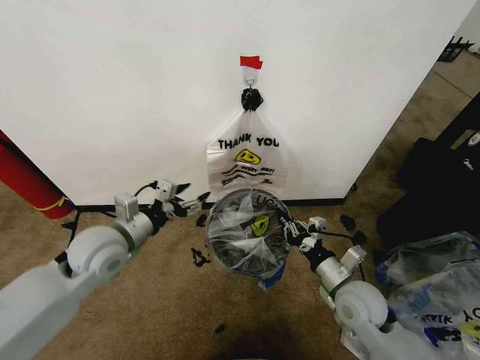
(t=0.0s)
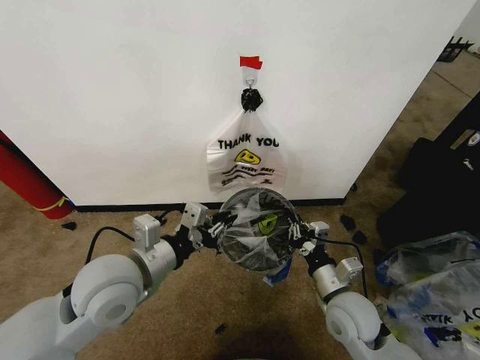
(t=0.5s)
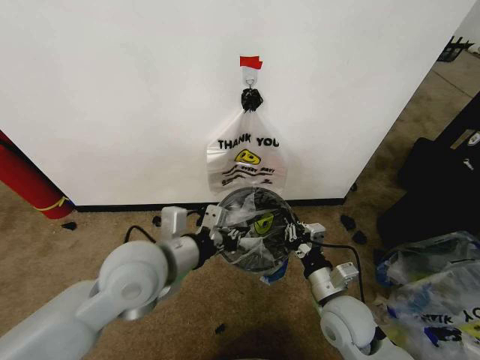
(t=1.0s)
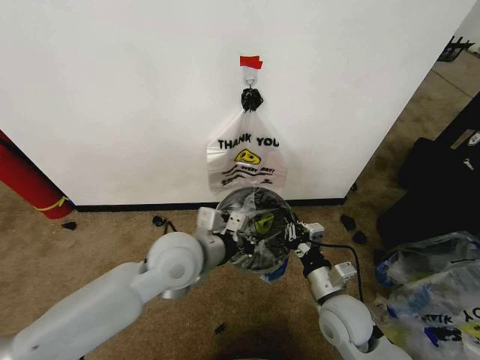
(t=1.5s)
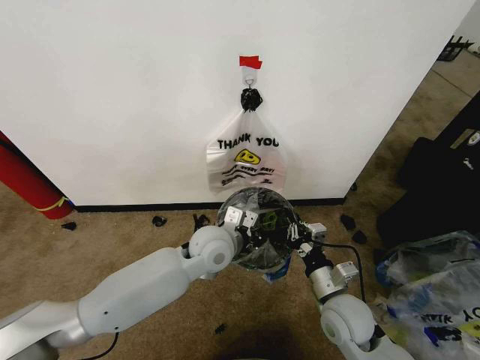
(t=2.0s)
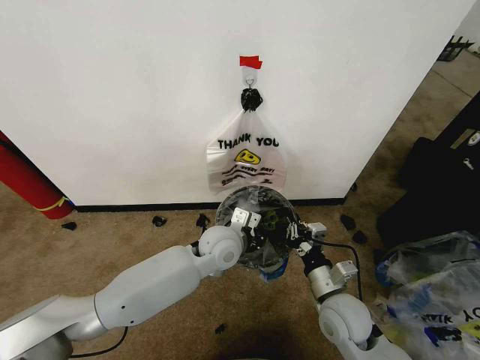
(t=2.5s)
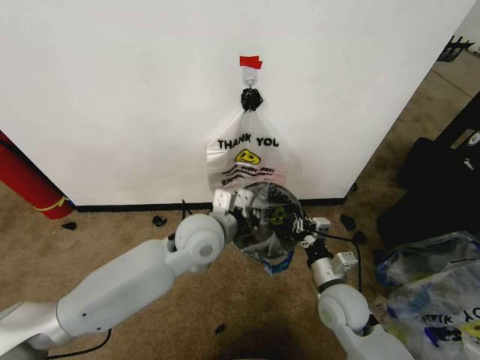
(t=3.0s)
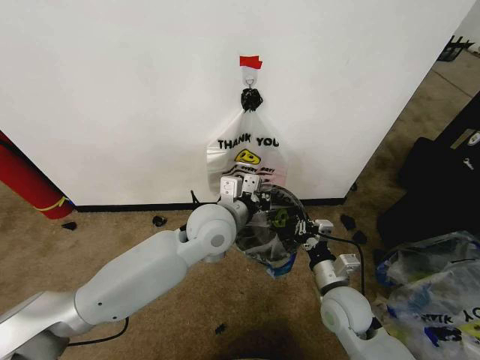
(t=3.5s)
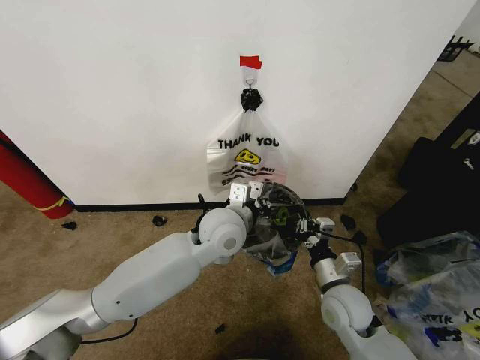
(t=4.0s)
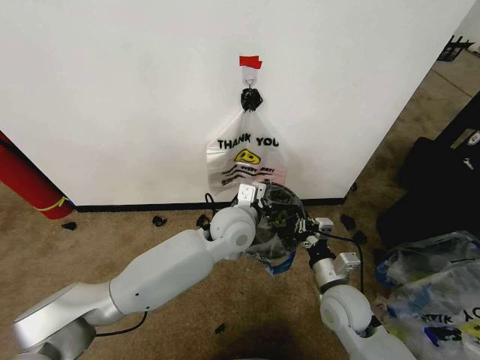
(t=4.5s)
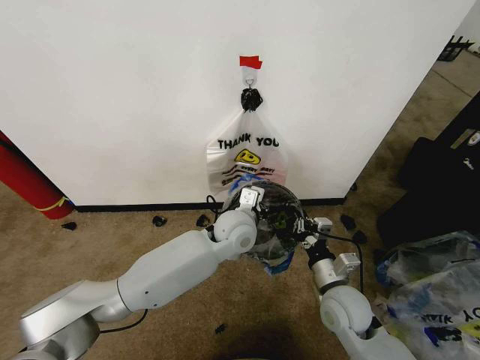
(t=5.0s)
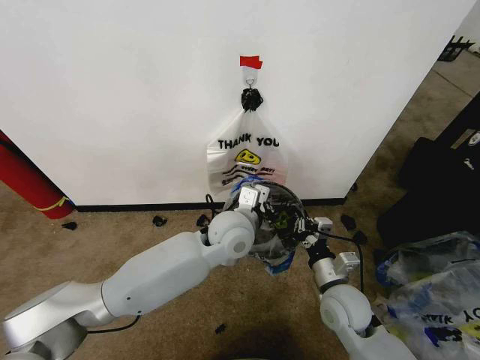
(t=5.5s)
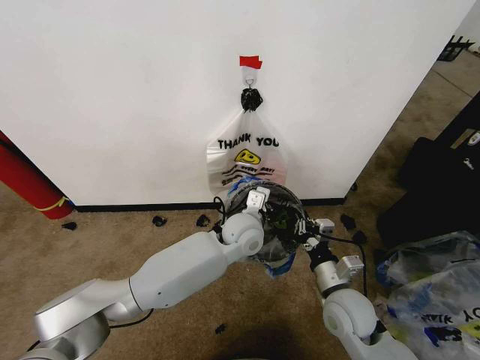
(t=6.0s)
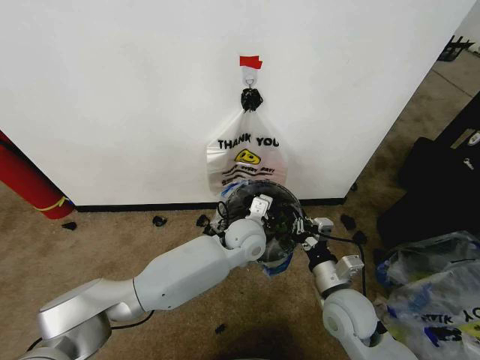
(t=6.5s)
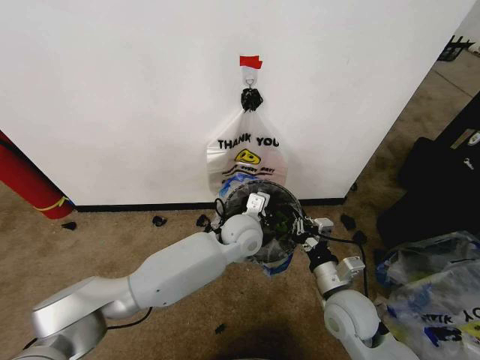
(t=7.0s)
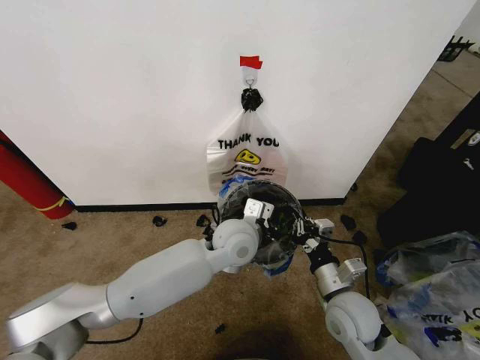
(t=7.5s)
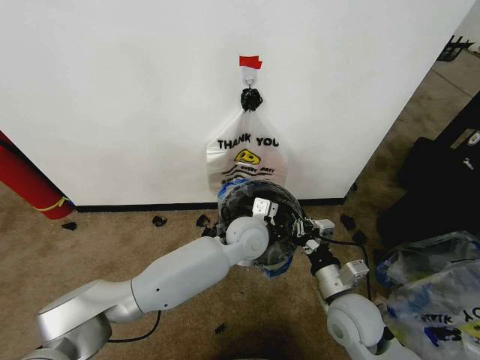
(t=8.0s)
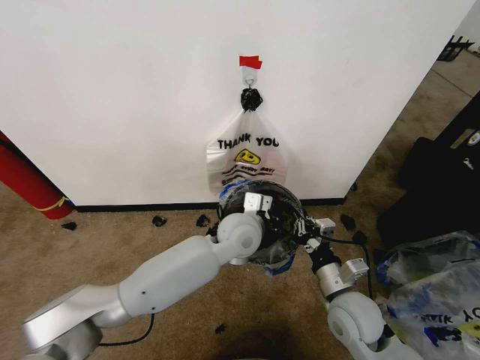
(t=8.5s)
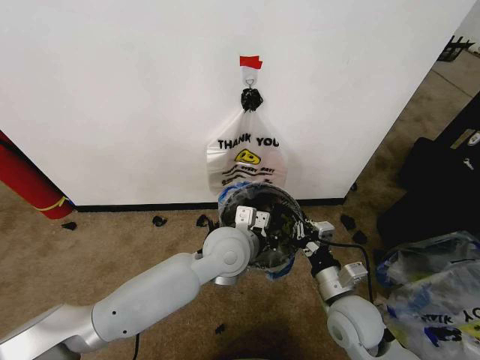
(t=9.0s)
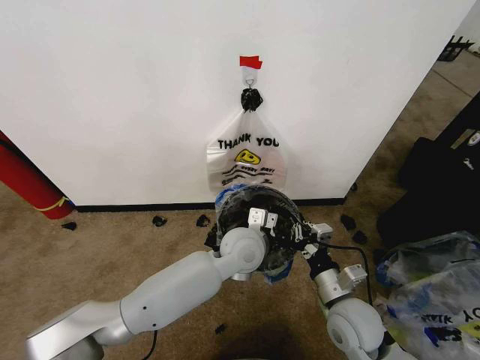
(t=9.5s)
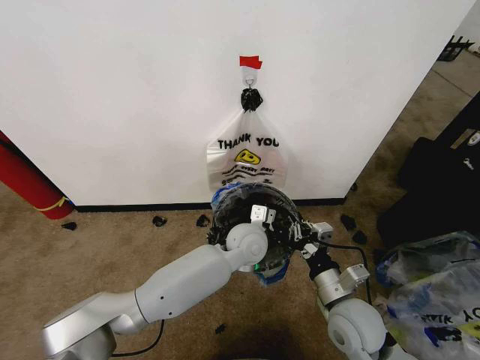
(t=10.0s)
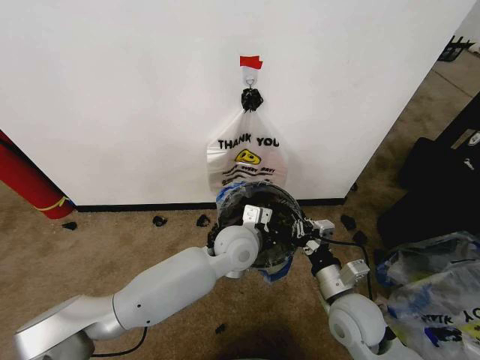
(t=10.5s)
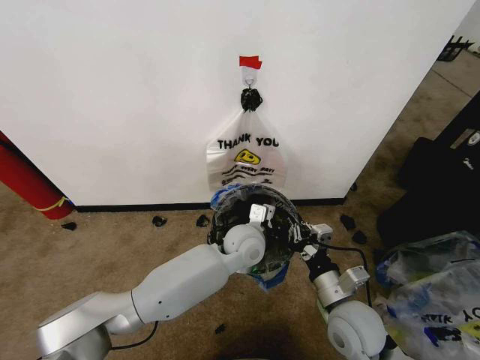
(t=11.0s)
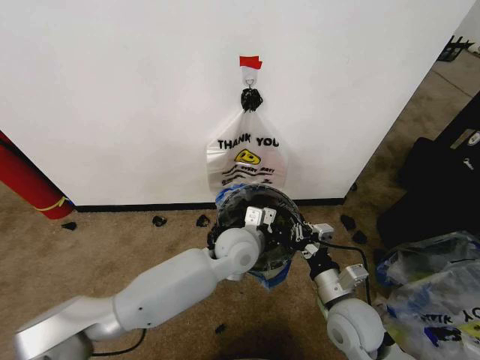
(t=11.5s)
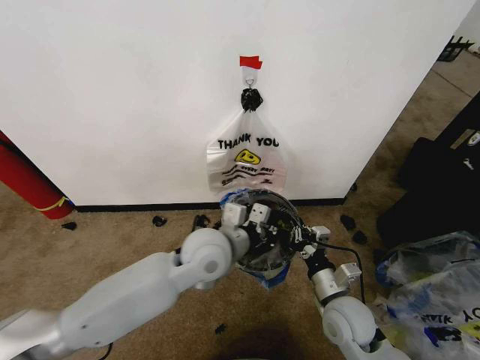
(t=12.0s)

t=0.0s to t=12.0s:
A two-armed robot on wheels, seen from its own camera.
Task of the whole recording: Pick up the garbage bag from the wall and place it over the trash bin.
t=0.0s to t=2.0s: The left gripper shifts about 20 cm to the right, and closes.
t=2.0s to t=4.0s: The left gripper changes place by about 5 cm.
t=4.0s to t=6.0s: The left gripper moves downward, approximately 5 cm.
t=6.0s to t=8.0s: The grippers stay close to where they were, moving slightly.
t=10.0s to t=12.0s: The left gripper is displaced to the left, upward and backward by some 15 cm.

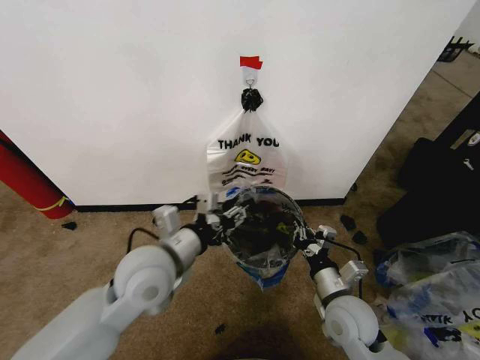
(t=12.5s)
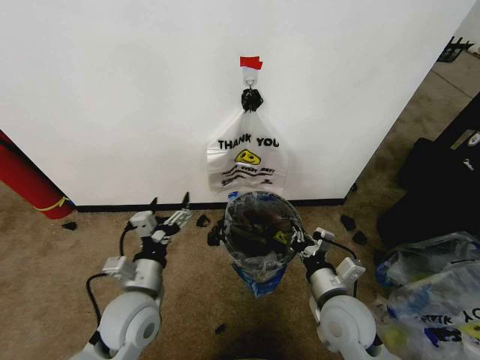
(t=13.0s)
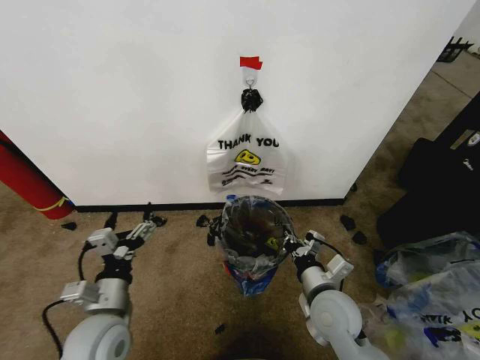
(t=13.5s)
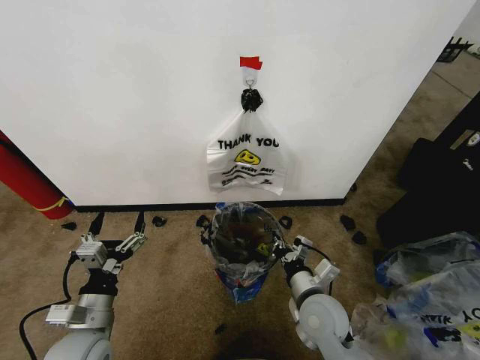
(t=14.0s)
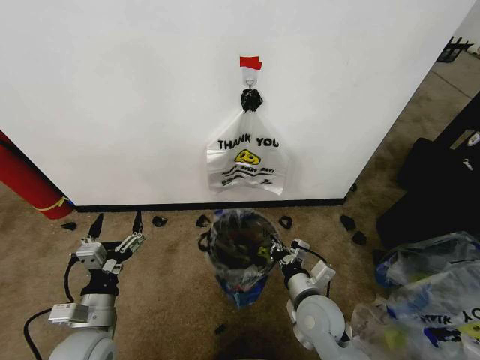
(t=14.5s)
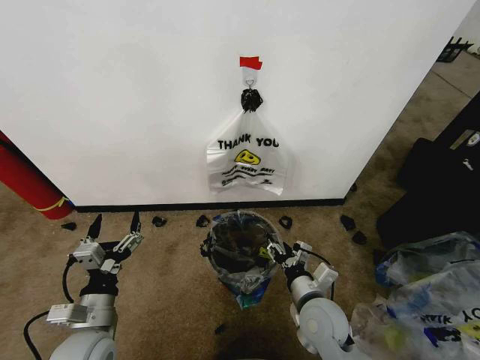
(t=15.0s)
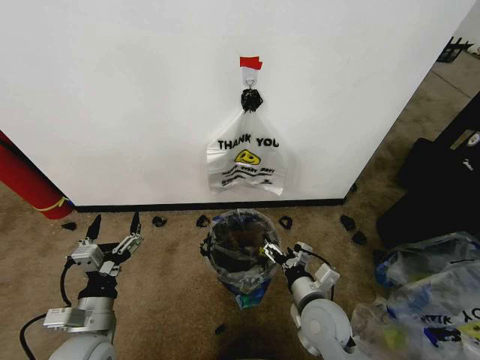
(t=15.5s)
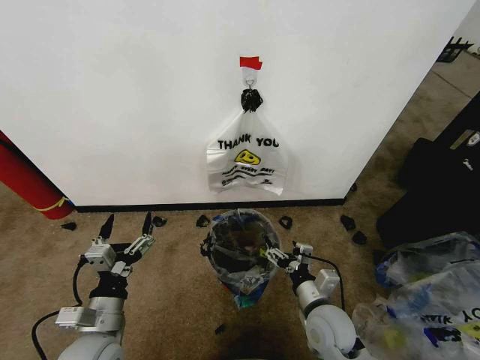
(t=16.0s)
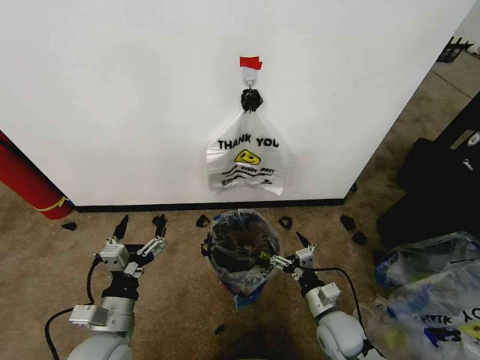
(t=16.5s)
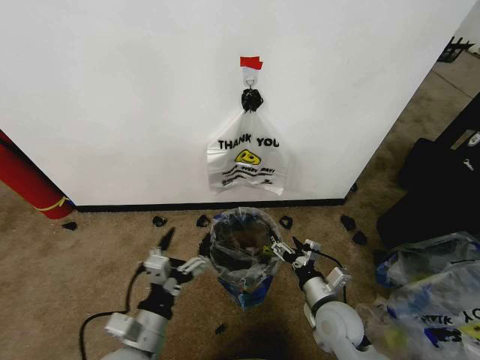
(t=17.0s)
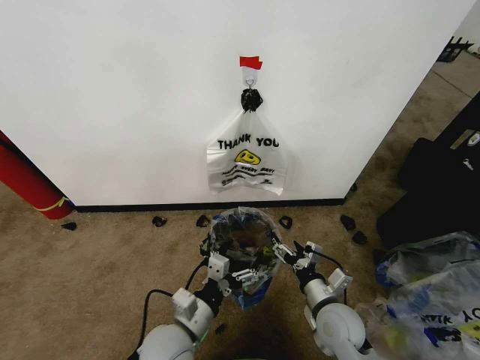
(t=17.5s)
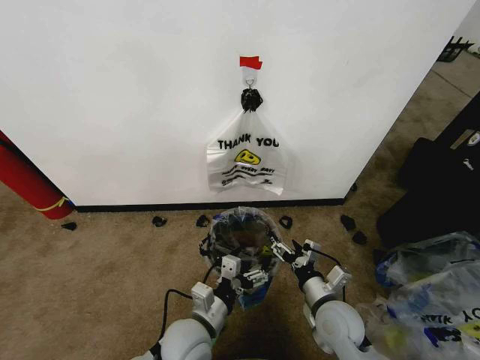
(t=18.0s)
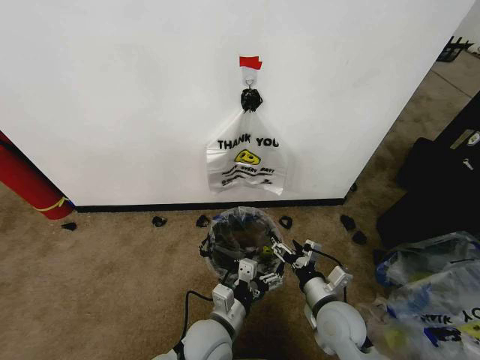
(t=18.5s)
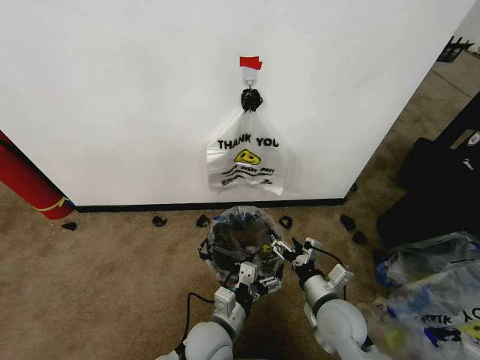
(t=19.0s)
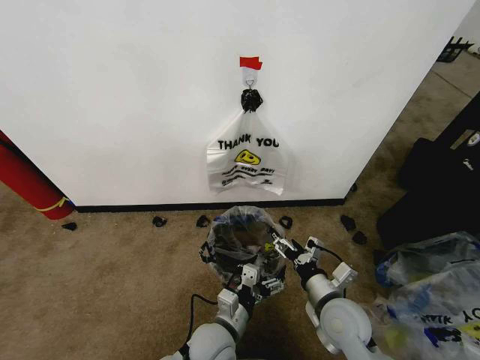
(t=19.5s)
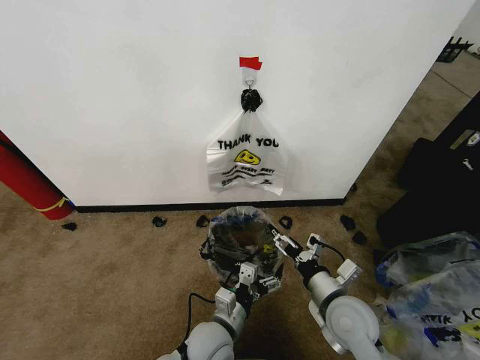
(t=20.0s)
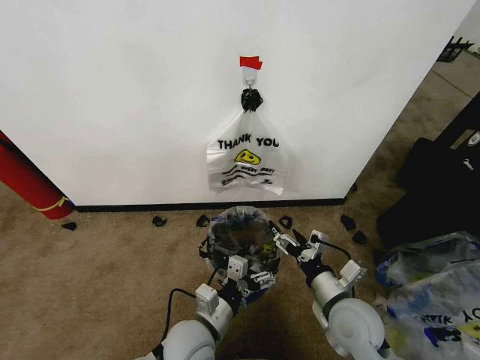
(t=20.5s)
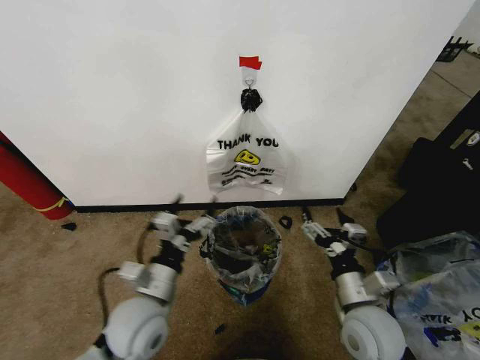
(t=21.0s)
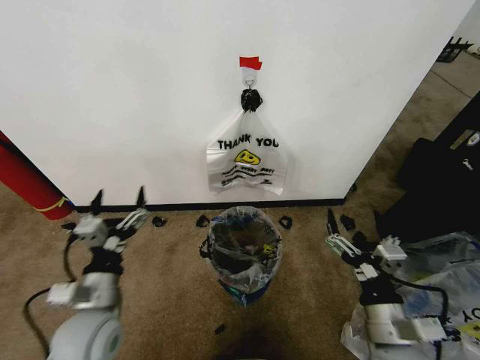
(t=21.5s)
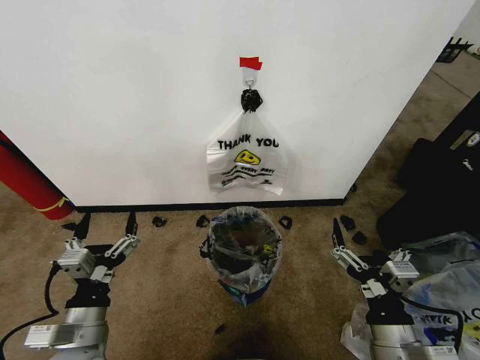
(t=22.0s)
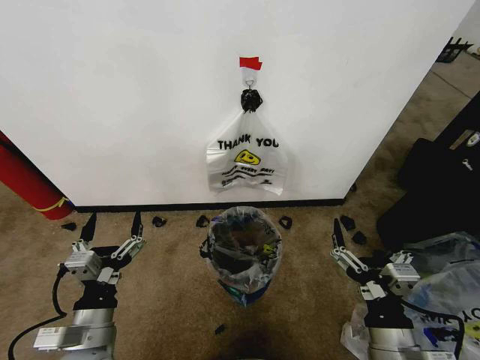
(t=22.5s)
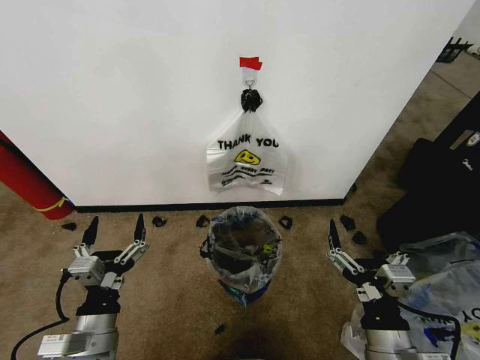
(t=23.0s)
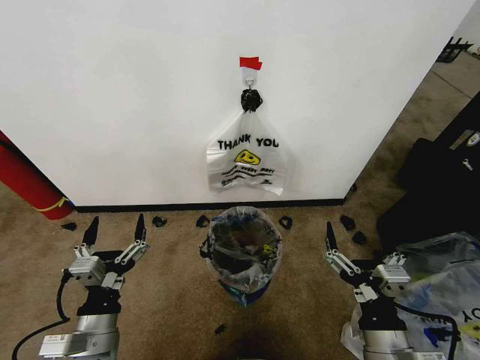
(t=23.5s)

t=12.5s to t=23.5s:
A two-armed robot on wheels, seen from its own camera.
Task of the whole recording: Pick up the garbage bag from the wall and place it over the trash bin.
t=12.5s to t=14.5s: The left gripper is displaced downward, to the left and backward by about 20 cm, and opens up, while the right gripper is displaced to the left by about 5 cm.
t=14.5s to t=16.0s: The right gripper opens.
t=16.0s to t=18.0s: The left gripper heads to the right, covering approximately 15 cm.
t=18.0s to t=20.0s: The left gripper ends up some 5 cm from where it was.
t=20.0s to t=21.5s: The left gripper heads to the left and upward, covering about 25 cm, while the right gripper is displaced backward by about 10 cm.
t=21.5s to t=23.5s: The right gripper moves roughly 5 cm; the left gripper shifts some 5 cm backward.

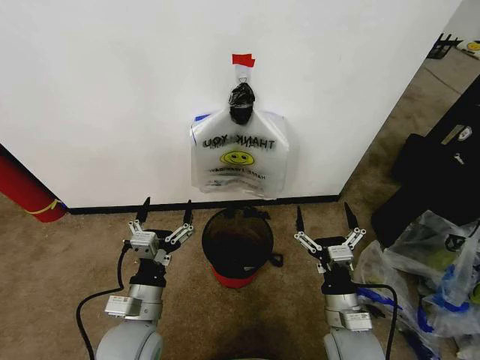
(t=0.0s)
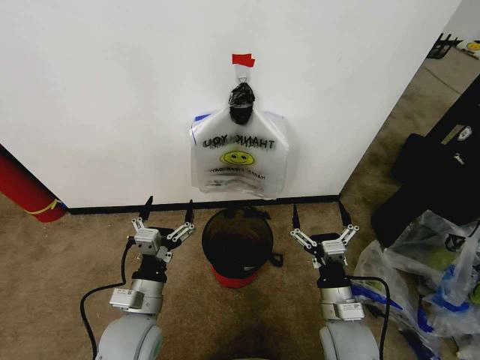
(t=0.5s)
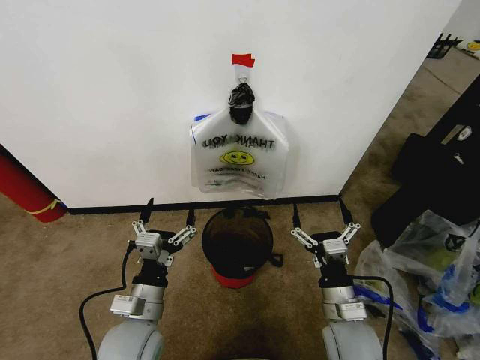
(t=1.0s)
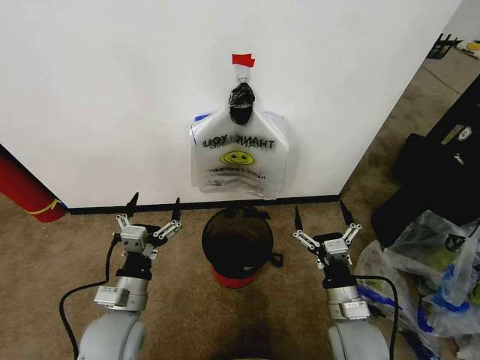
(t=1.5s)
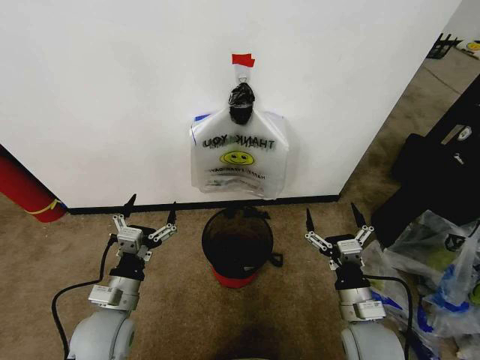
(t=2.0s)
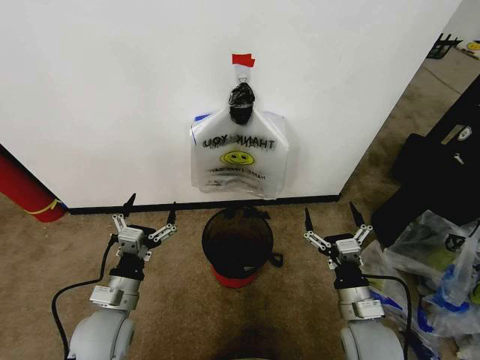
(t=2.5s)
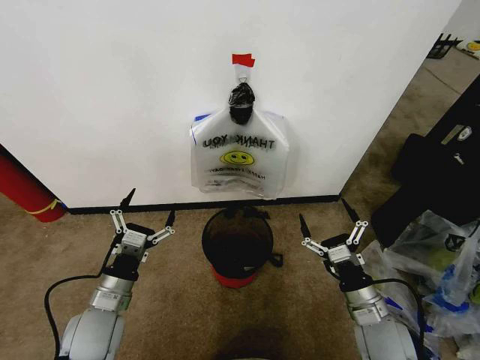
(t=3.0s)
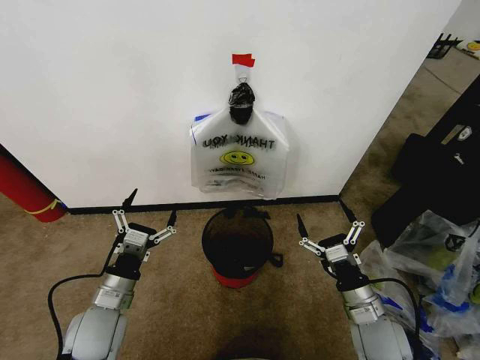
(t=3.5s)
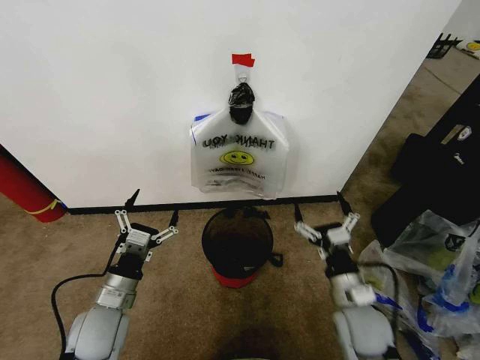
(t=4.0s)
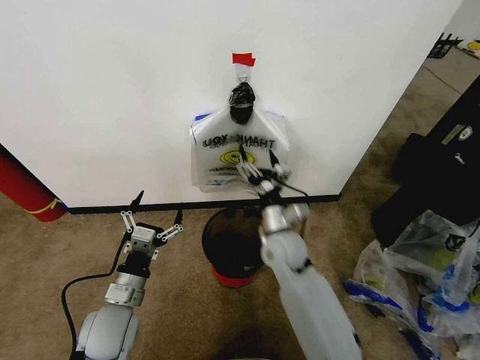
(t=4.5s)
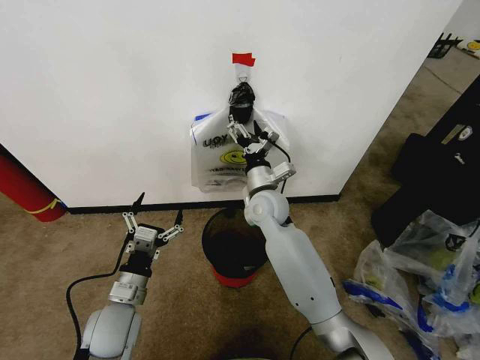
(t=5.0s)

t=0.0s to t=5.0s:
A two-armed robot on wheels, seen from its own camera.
Task of the whole recording: Pick up the garbage bag from the wall and place it over the trash bin.
t=2.5s to t=5.0s: The right gripper heads forward, to the left and upward, covering about 35 cm.
